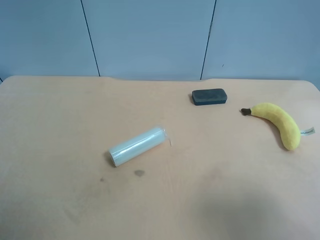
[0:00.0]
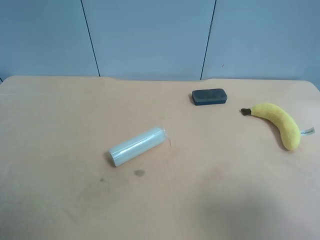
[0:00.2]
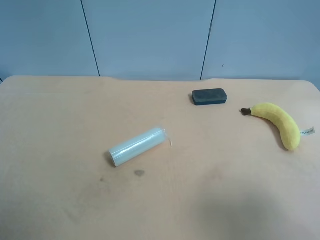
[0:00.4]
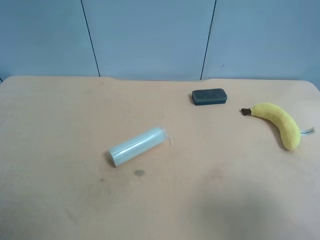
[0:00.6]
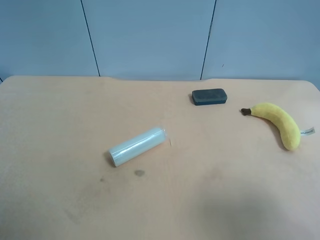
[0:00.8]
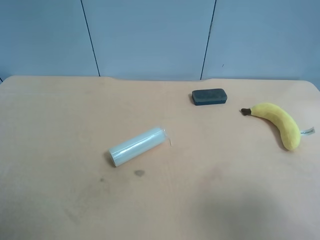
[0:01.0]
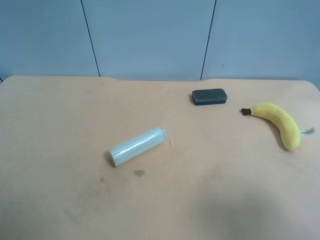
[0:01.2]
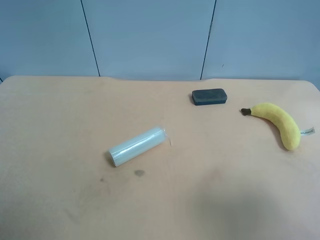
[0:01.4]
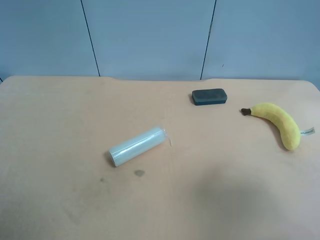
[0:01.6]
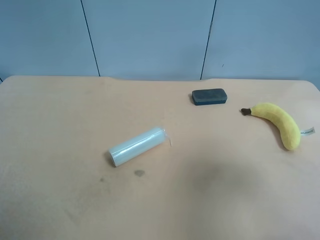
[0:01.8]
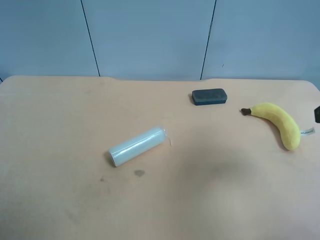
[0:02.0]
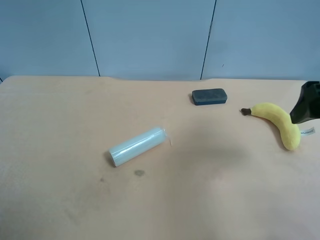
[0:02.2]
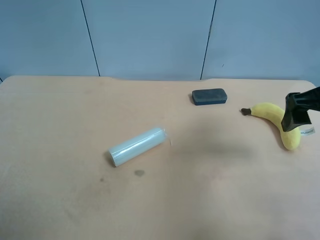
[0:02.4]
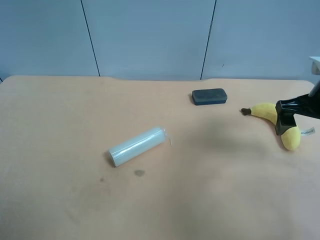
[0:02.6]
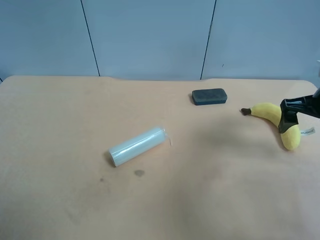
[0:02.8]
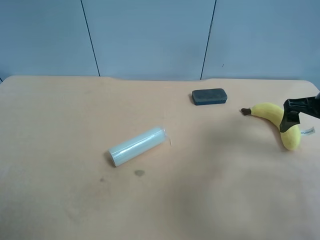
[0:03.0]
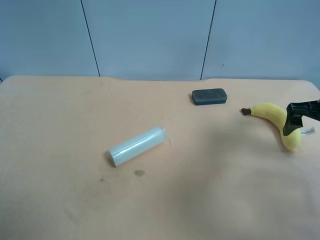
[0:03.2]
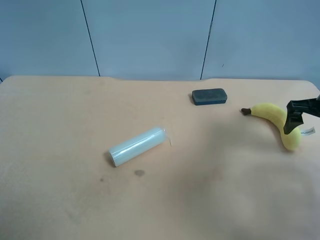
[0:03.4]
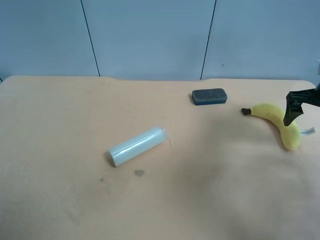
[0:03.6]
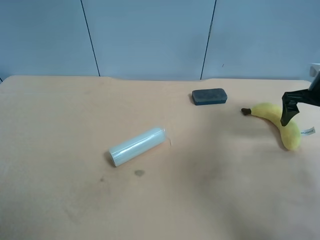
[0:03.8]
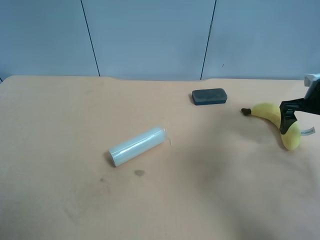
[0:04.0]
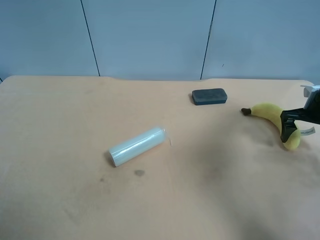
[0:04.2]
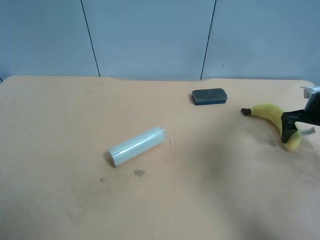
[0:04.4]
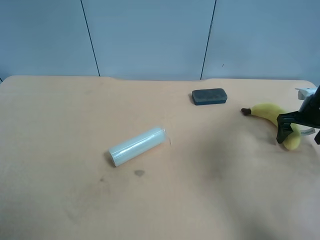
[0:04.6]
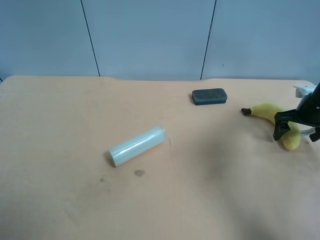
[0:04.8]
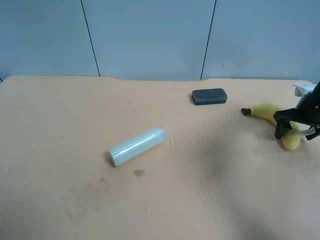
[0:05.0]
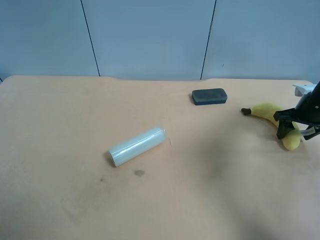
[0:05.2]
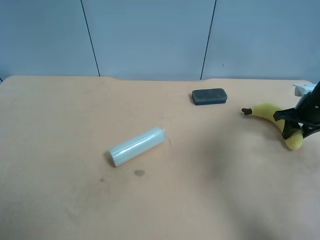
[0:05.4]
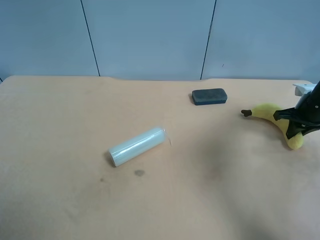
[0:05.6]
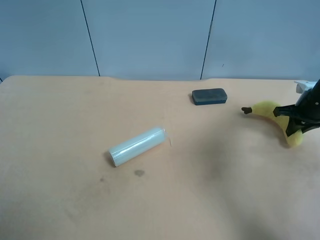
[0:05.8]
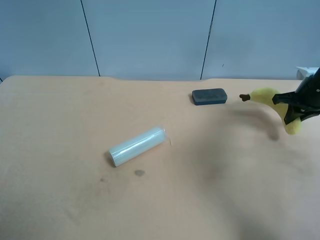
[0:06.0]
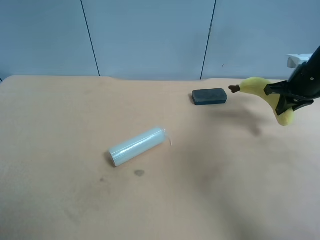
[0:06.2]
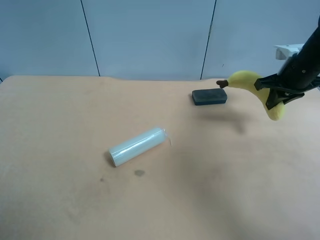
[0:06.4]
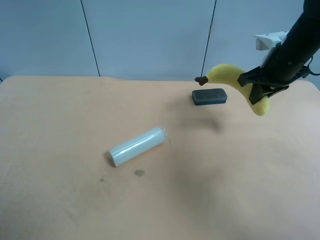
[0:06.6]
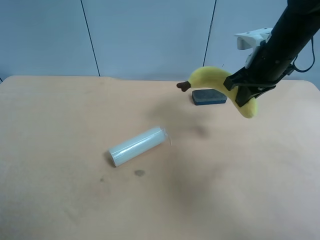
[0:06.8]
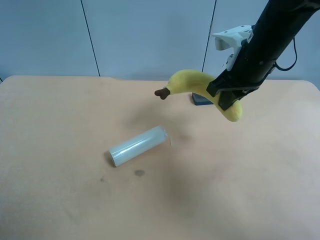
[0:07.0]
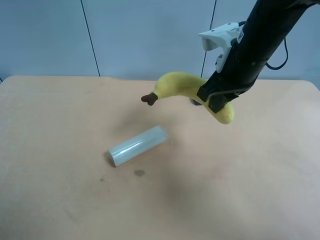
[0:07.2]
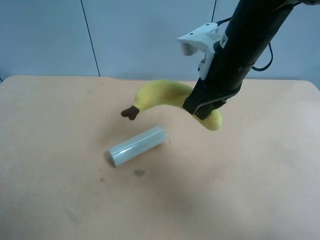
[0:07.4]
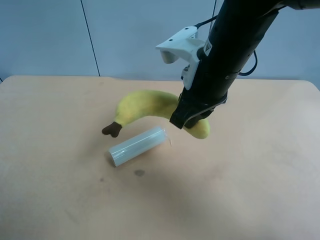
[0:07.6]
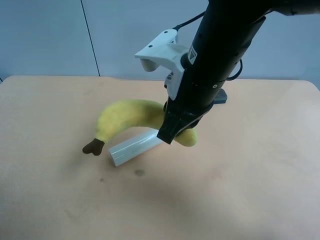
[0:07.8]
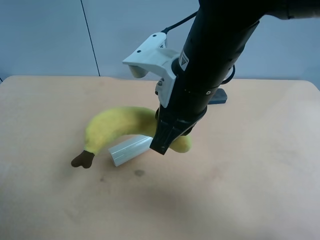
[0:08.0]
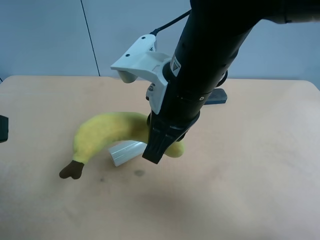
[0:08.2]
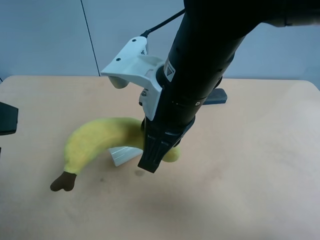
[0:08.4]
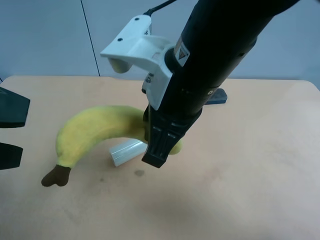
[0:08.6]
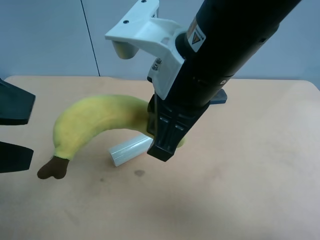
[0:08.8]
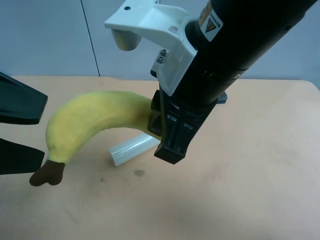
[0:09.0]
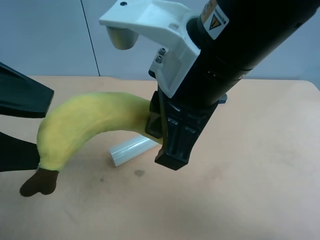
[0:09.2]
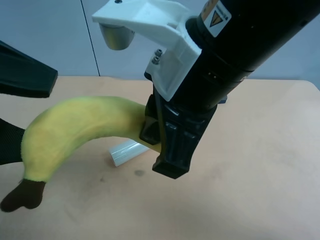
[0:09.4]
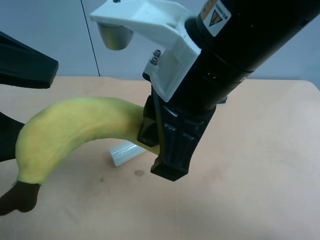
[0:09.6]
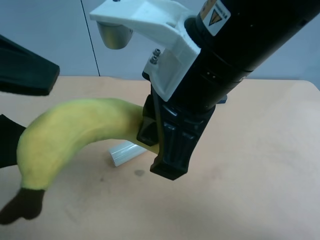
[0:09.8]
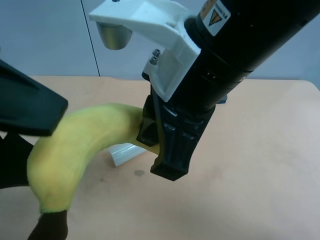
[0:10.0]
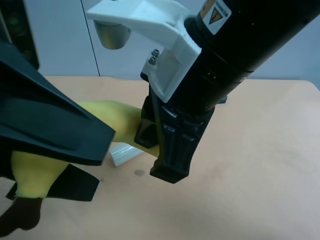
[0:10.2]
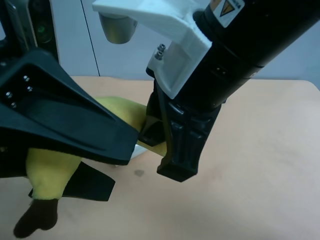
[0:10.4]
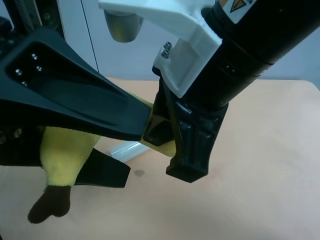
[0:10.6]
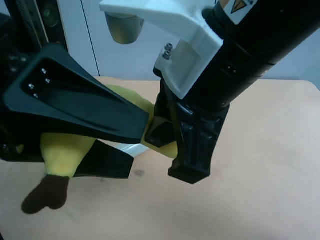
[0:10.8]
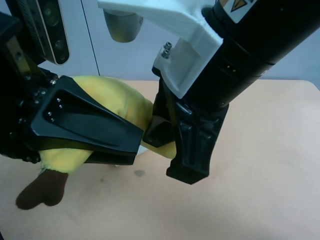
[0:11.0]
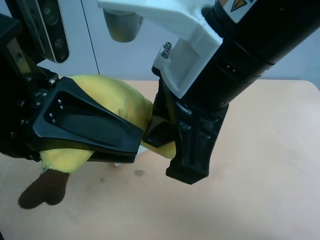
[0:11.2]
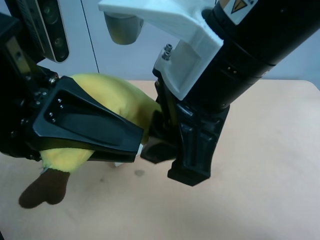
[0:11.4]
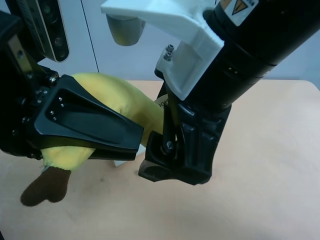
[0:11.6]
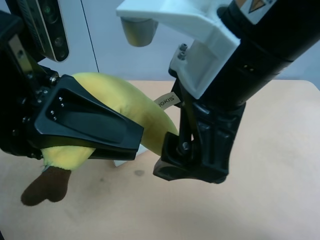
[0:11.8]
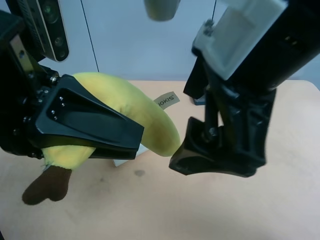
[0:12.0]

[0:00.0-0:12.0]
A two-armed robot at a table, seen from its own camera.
Task of the whole recording: use the right gripper to pick up the item and transfer it from the right gripper to the left gripper.
0:01.6 to 0:03.0: The right gripper is displaced forward and downward by approximately 25 cm.
0:03.0 to 0:04.4: The right gripper shifts some 10 cm downward, forward and to the right.
0:04.4 to 0:06.0: The right gripper closes its fingers.
0:06.0 to 0:07.6: The left gripper moves some 5 cm. The right gripper travels to the left and backward by some 30 cm.
0:07.6 to 0:09.0: The left gripper heads to the right and forward, covering some 10 cm; the right gripper shifts approximately 10 cm backward and upward.
0:09.0 to 0:10.4: The left gripper goes about 5 cm to the right.
0:10.4 to 0:12.0: The left gripper closes. Meanwhile the right gripper opens its fingers.

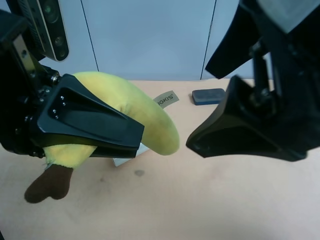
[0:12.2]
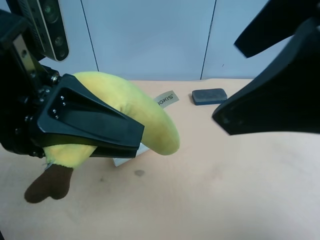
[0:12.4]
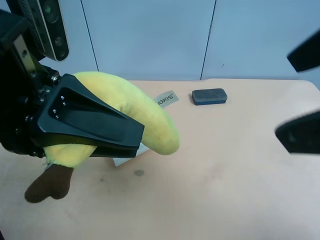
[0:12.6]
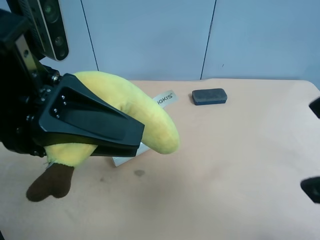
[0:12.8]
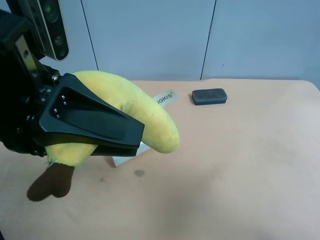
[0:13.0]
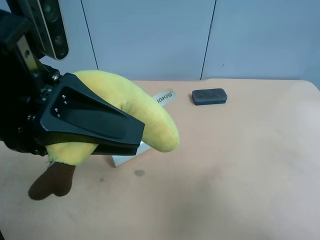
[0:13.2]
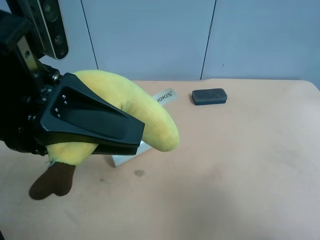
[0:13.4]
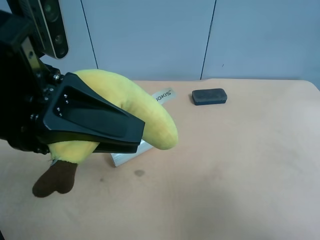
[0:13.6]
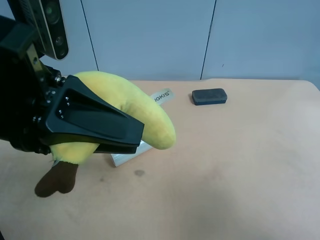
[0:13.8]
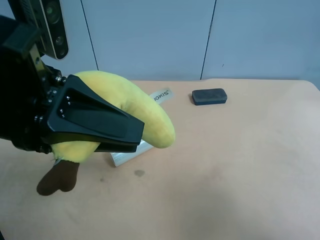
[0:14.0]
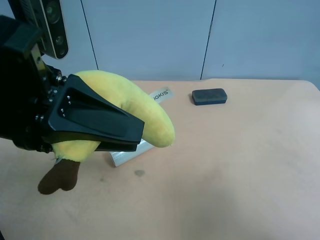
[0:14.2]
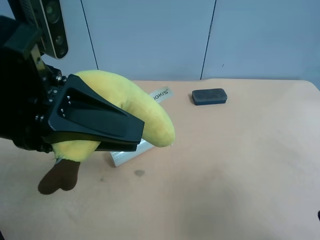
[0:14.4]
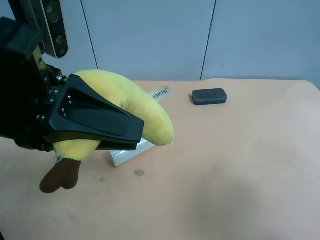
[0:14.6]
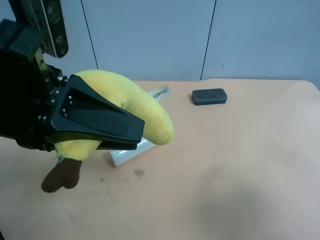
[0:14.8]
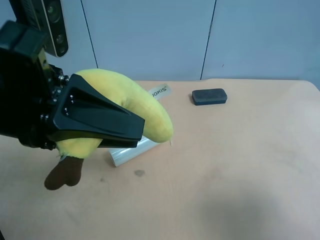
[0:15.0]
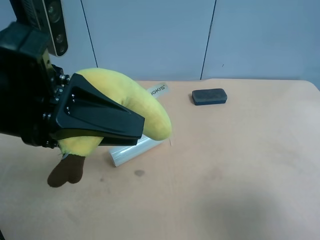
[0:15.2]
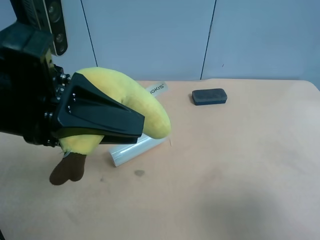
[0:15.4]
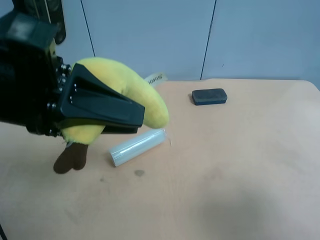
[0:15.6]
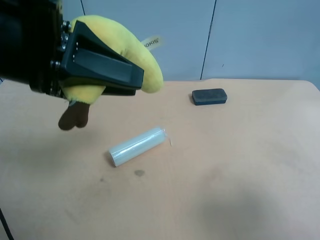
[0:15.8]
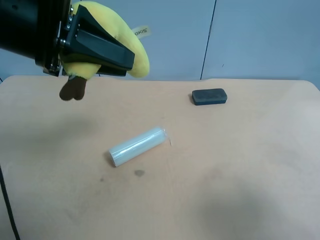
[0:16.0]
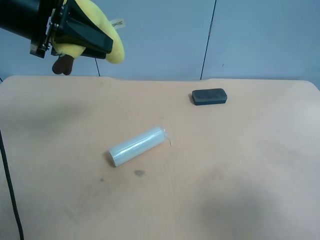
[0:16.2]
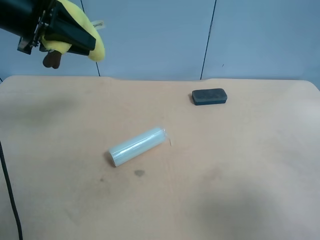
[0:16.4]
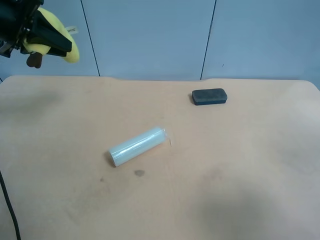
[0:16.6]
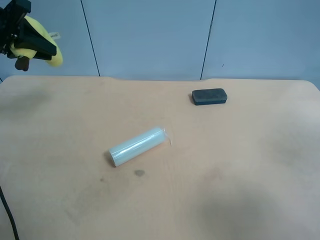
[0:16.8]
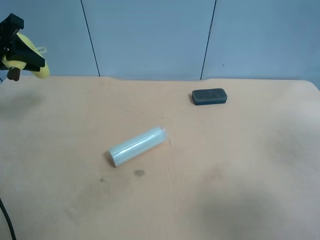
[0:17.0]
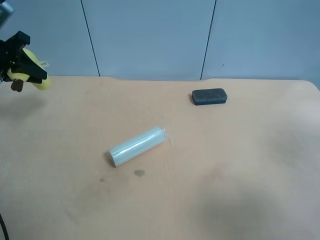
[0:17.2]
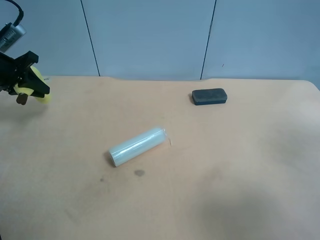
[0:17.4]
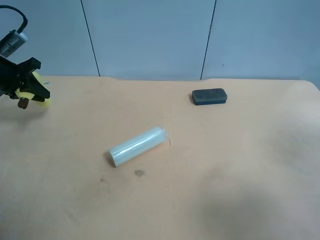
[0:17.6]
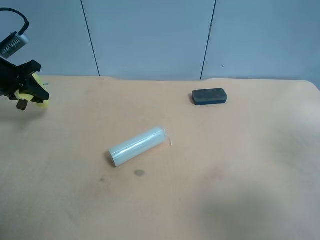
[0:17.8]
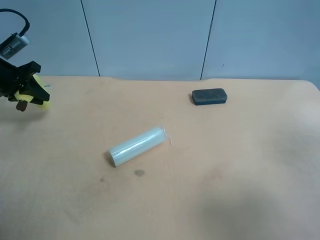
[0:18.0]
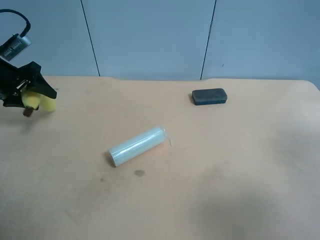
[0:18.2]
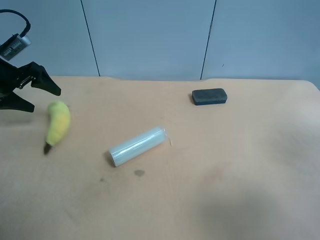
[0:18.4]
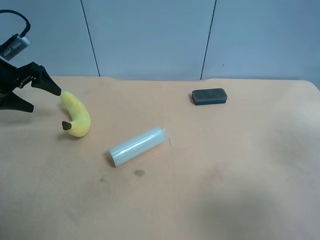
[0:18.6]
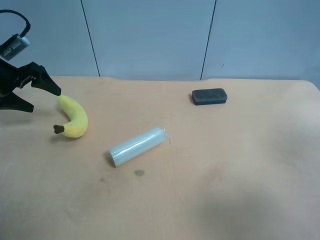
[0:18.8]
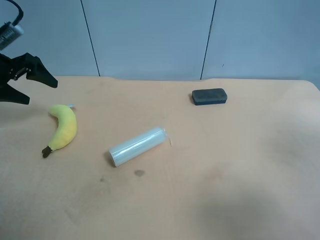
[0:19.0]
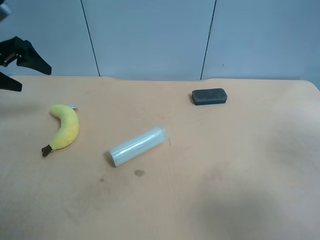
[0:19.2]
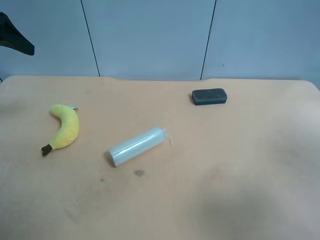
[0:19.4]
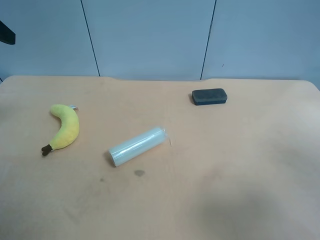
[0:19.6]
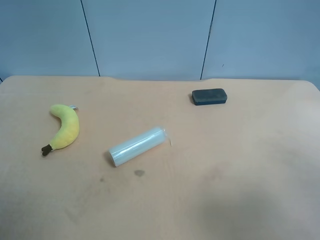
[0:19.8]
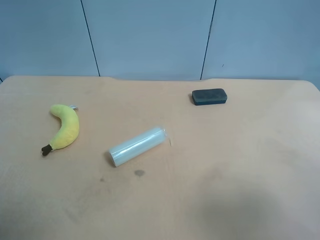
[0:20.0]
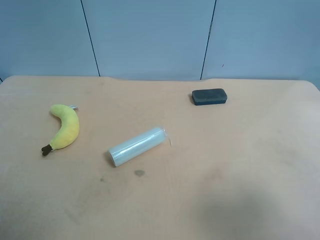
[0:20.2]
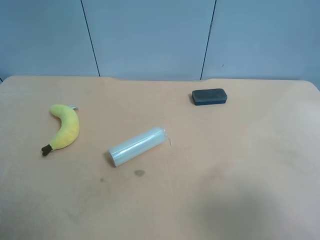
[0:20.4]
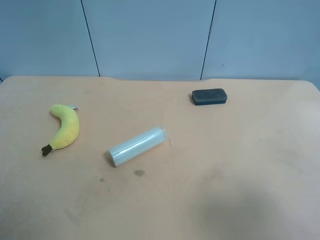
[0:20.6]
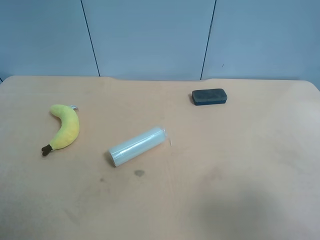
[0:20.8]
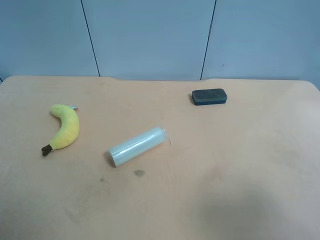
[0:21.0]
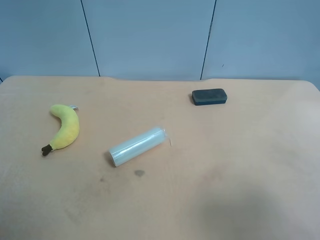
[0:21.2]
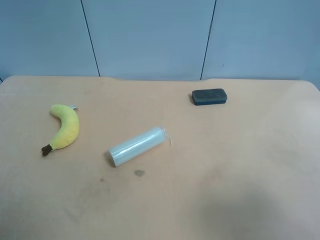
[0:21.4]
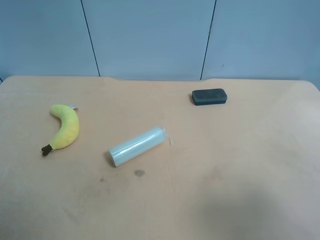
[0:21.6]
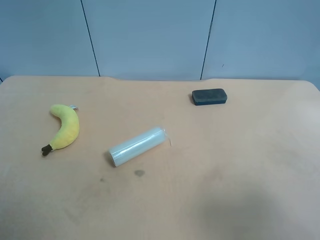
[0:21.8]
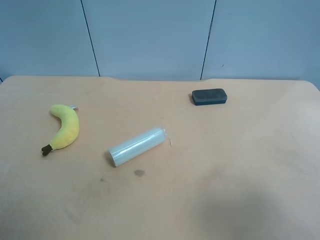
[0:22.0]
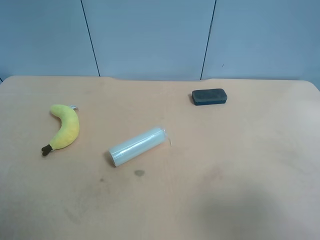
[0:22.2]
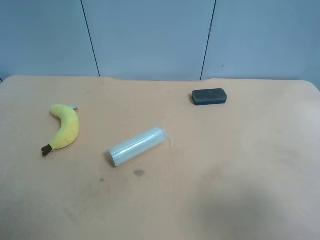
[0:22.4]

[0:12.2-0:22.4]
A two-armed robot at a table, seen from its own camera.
Task of the whole recording: use the right gripper to pick up the item and transfer it from the right gripper to the left gripper.
0:12.2 to 0:13.6: The right gripper heads to the right, downward and backward, covering approximately 20 cm.
0:15.2 to 0:16.6: The left gripper moves forward and to the left, some 20 cm.
0:16.6 to 0:18.0: The left gripper travels downward and to the left by some 15 cm.
0:18.0 to 0:19.4: The left gripper moves upward and backward, roughly 15 cm, and opens its fingers.
0:19.4 to 0:21.0: The left gripper heads backward, covering some 30 cm.
0:21.0 to 0:22.4: Both grippers stay put.
